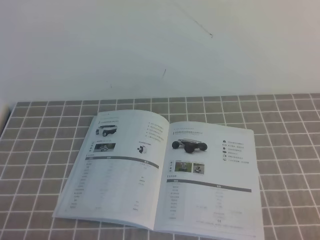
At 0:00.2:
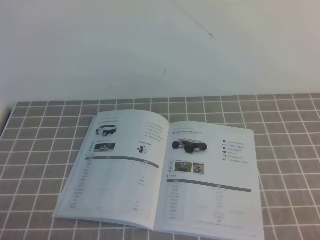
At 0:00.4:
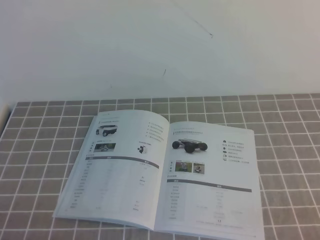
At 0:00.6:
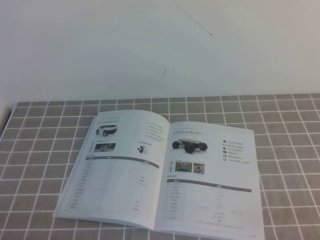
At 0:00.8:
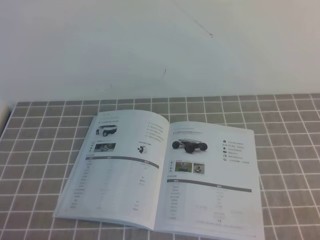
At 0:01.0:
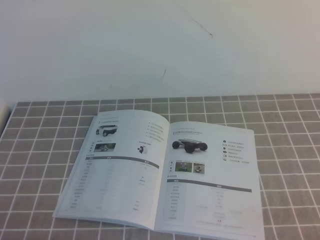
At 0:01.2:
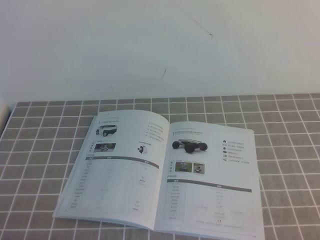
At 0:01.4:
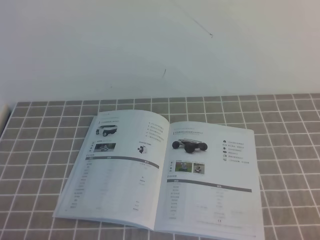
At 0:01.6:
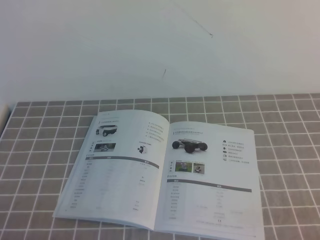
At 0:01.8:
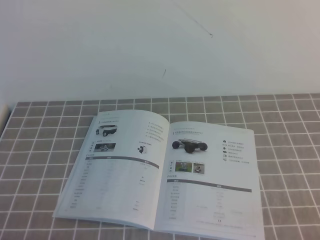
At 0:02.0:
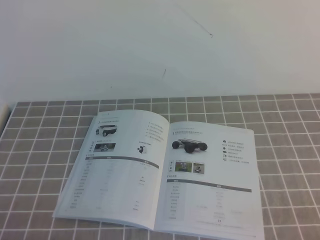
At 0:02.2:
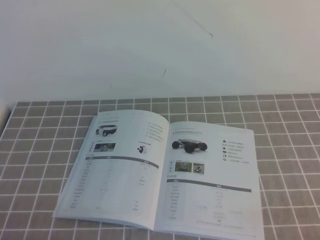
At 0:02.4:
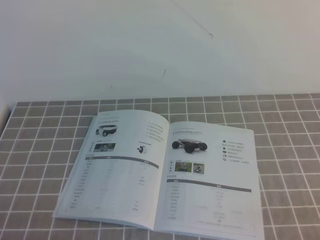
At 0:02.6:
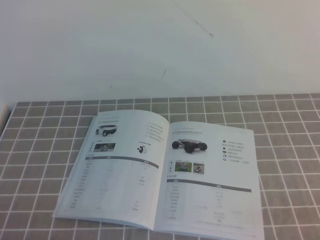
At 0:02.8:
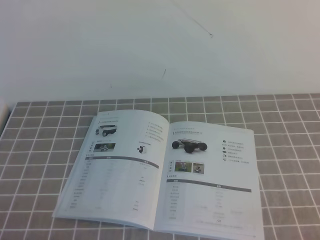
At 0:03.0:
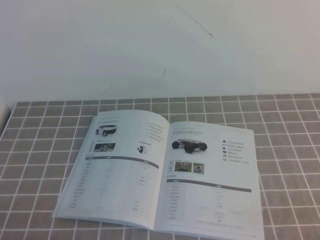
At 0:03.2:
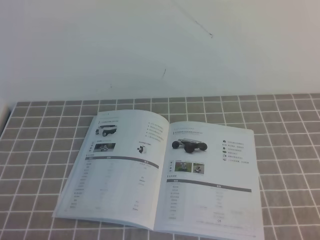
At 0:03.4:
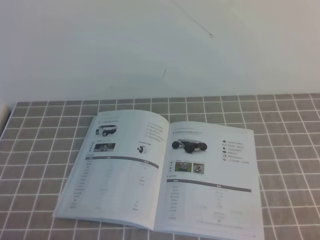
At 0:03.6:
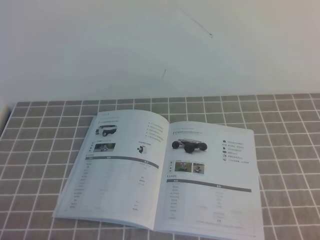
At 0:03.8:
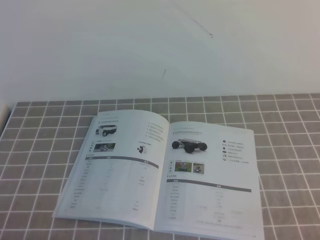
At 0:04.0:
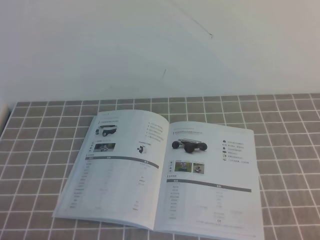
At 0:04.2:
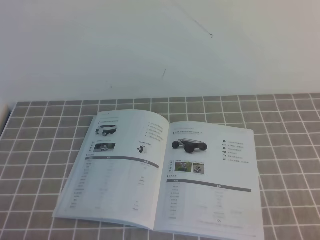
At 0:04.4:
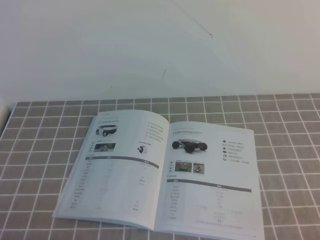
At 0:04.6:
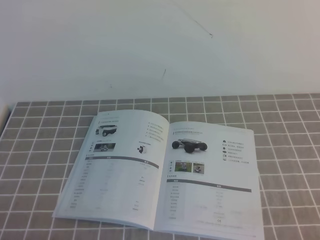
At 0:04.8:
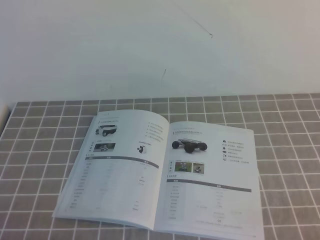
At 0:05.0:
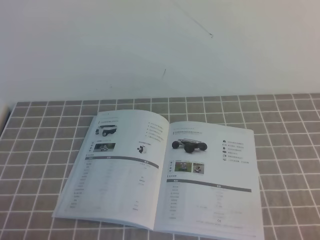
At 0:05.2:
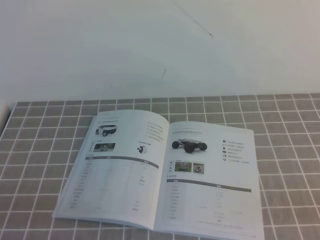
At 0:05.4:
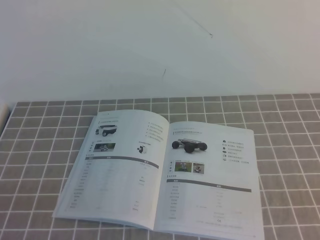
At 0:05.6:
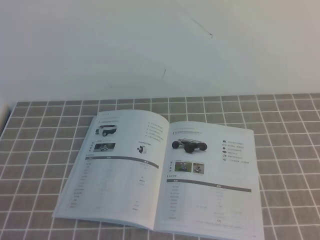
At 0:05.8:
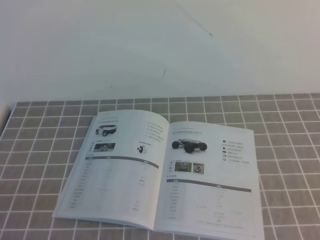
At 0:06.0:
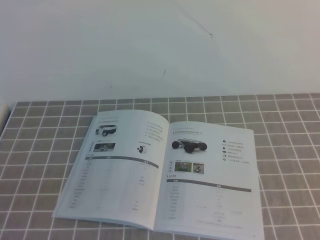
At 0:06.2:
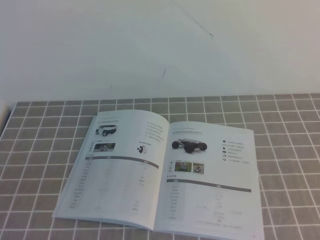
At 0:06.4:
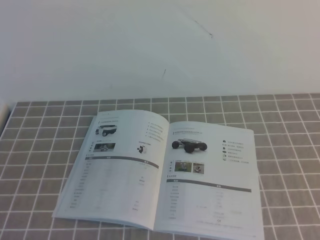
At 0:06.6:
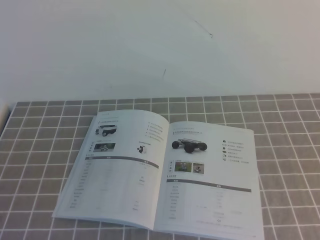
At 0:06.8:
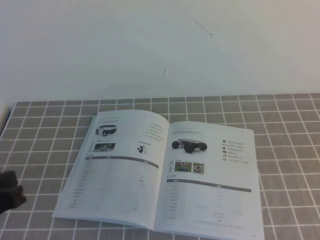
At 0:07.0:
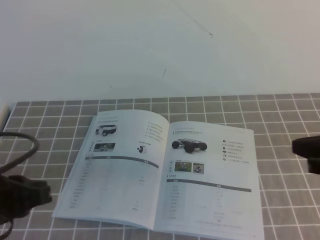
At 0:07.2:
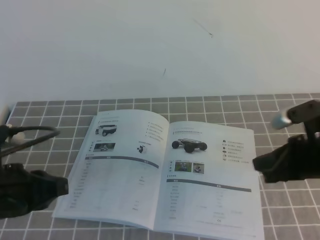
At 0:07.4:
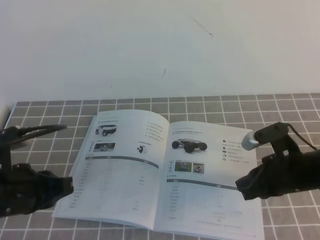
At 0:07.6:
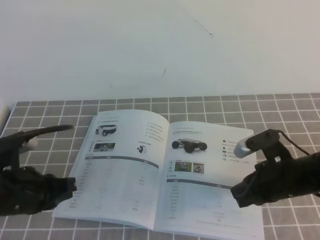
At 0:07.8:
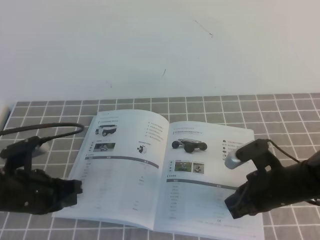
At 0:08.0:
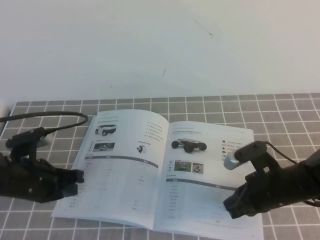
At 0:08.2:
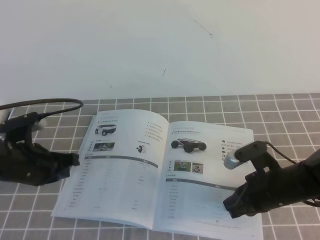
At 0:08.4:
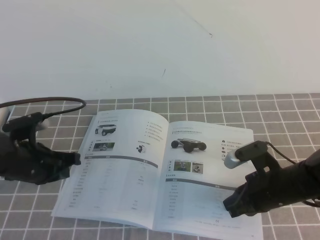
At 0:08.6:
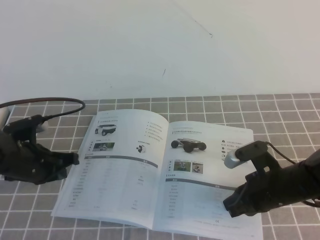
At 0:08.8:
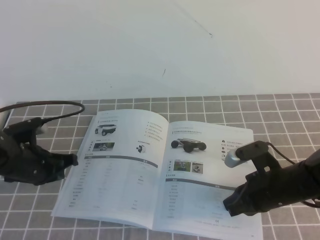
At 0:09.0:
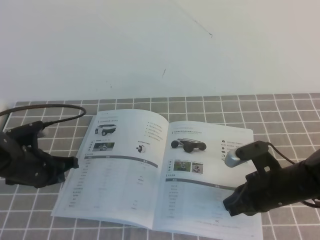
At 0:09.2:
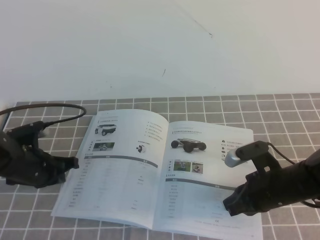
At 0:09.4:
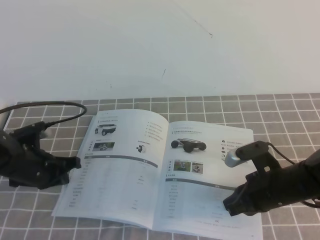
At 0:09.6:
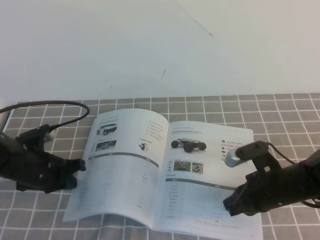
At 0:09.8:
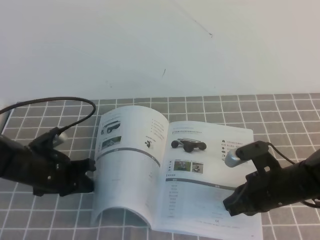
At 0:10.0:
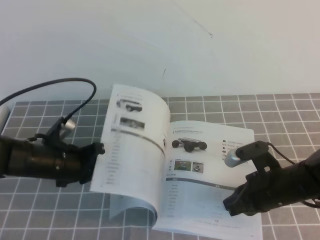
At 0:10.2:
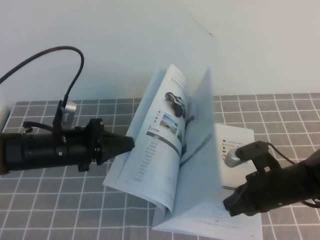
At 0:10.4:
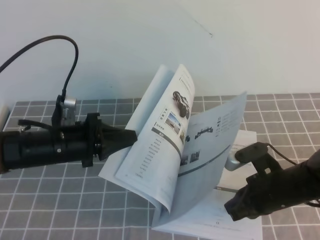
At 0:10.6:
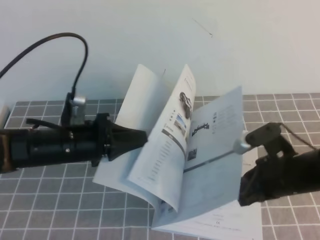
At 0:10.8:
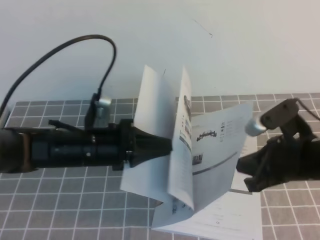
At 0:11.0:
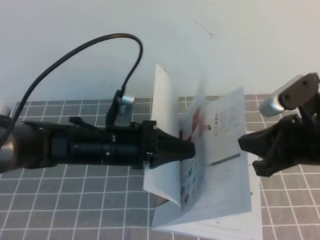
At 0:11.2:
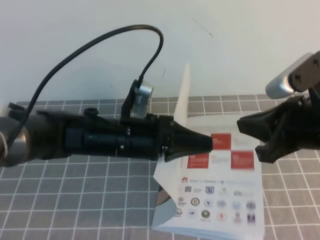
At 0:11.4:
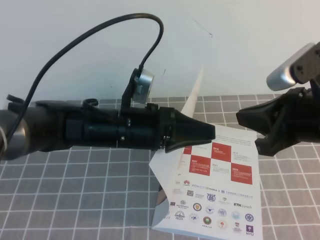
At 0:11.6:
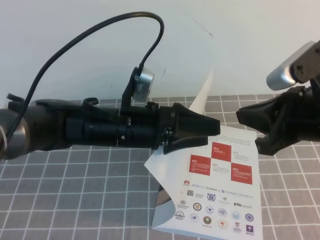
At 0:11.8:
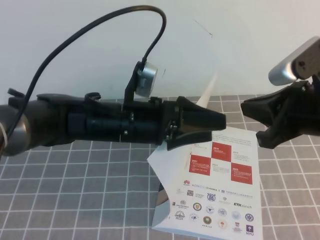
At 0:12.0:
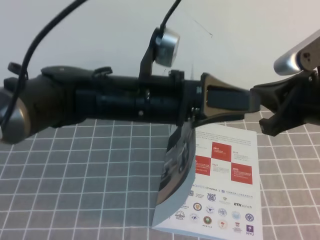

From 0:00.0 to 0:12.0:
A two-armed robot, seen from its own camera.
Task of the whole recording: on the grey tablecloth, hold the book with one hand and close it with the other.
From 0:01.6 to 0:04.4: Both grippers stay about where they are.
From 0:06.0 to 0:07.6: The left gripper goes approximately 20 cm forward and downward. The right gripper shifts about 35 cm forward, downward and to the left.
From 0:07.6 to 0:09.0: The left gripper heads forward and downward, covering some 15 cm.
From 0:09.0 to 0:10.4: The left gripper heads to the right, covering some 5 cm.
From 0:10.4 to 0:12.0: The right gripper goes some 20 cm upward. The left gripper heads to the right and upward, covering about 20 cm, and opens its fingers.

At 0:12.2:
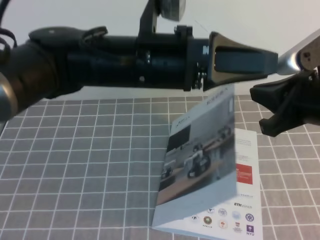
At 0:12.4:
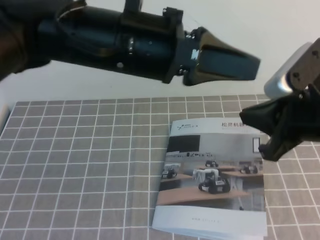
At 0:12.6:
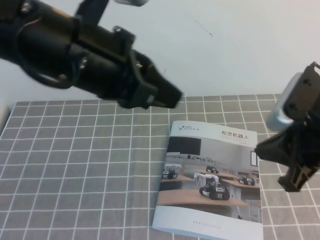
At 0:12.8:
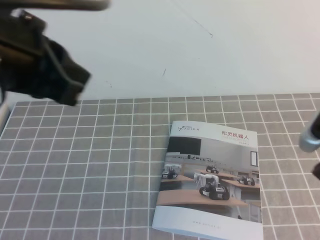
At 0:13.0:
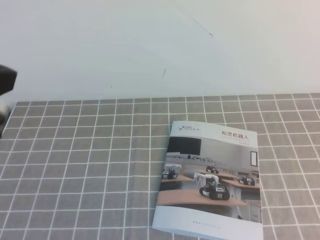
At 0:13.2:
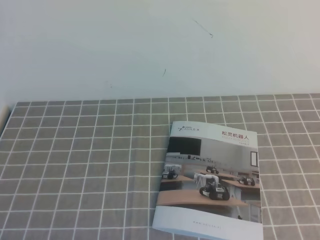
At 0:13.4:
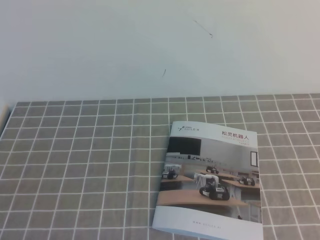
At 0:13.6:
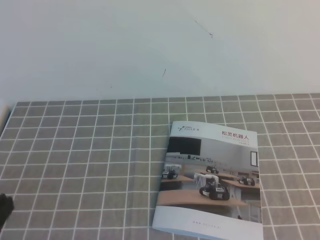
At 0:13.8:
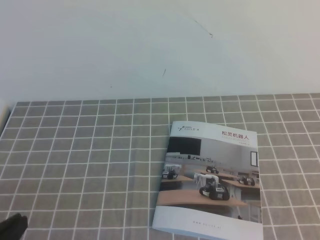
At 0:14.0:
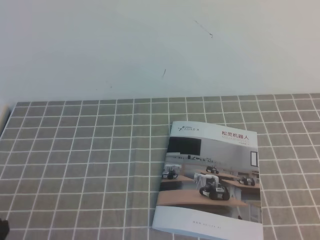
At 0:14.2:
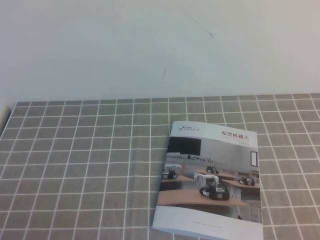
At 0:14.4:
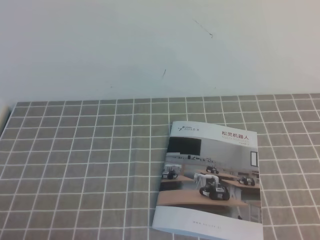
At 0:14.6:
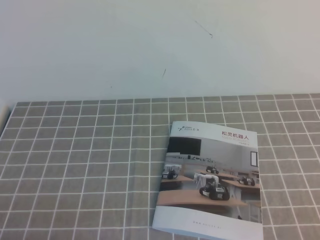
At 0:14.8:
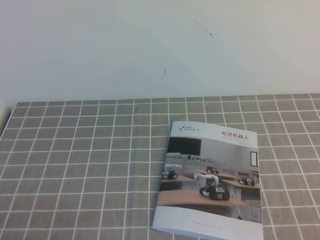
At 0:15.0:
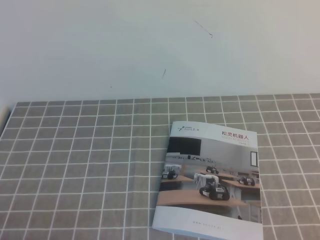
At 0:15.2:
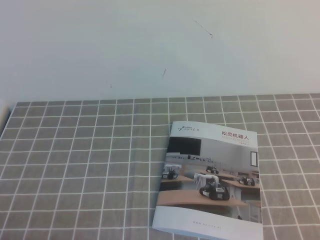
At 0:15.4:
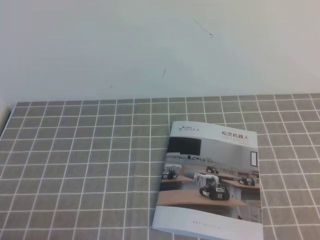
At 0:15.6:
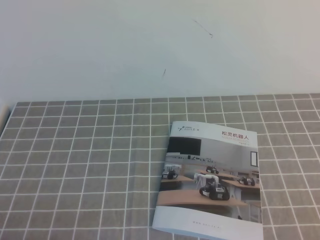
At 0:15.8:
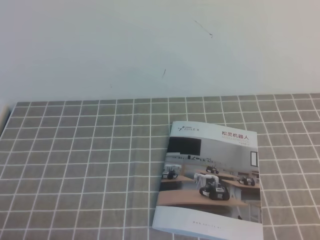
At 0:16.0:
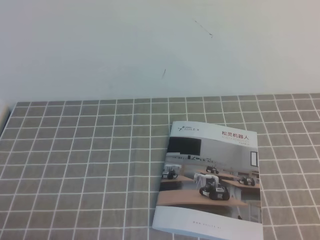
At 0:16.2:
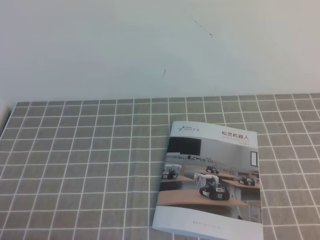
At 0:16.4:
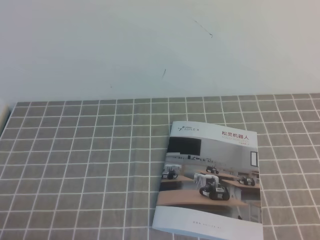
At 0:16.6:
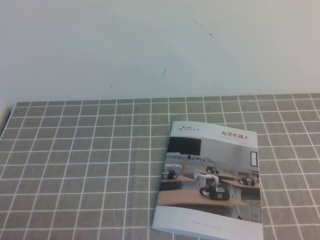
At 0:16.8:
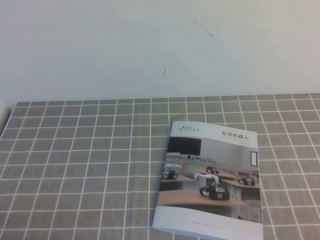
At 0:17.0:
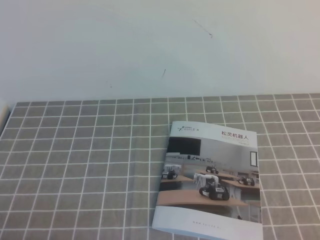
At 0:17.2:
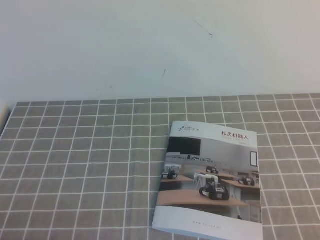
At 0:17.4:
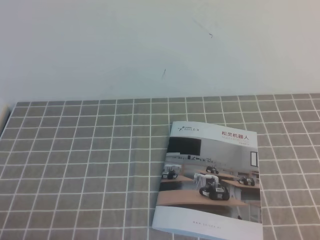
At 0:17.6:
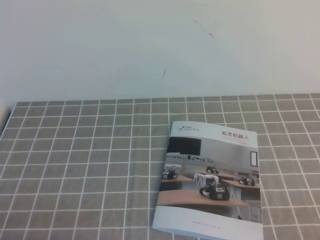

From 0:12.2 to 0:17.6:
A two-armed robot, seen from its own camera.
Task of the whole recording: on the grey tablecloth, hold the book with one hand and close it with the other.
Step, from 0:12.2 to 0:17.6: Close the open book.
From 0:12.2 to 0:13.6: The right gripper travels backward and to the right by approximately 25 cm; the left gripper shifts roughly 30 cm backward and to the left, and closes its fingers.
